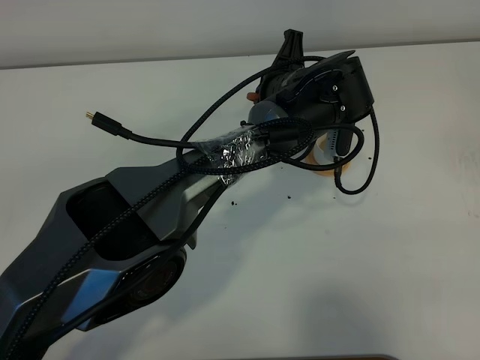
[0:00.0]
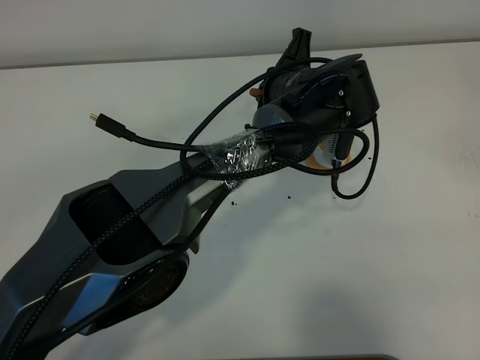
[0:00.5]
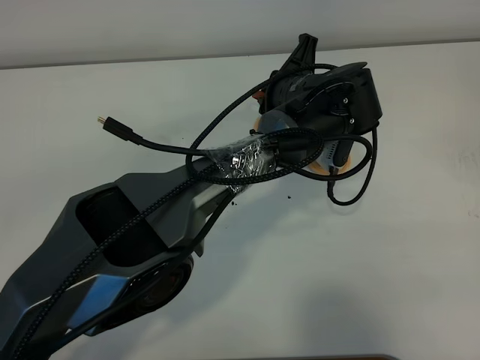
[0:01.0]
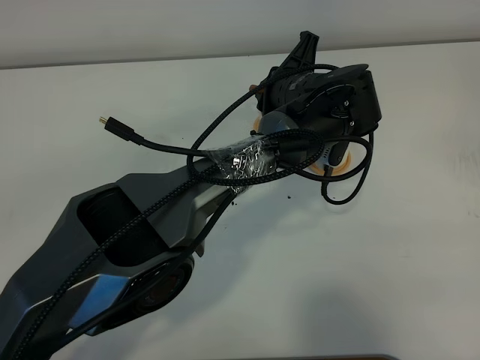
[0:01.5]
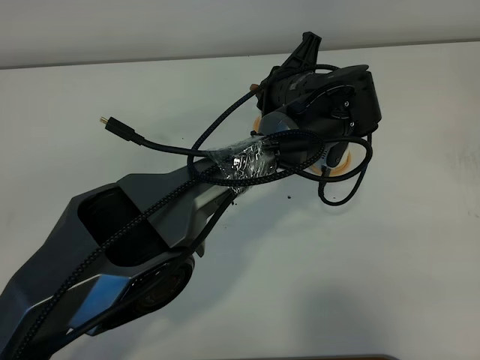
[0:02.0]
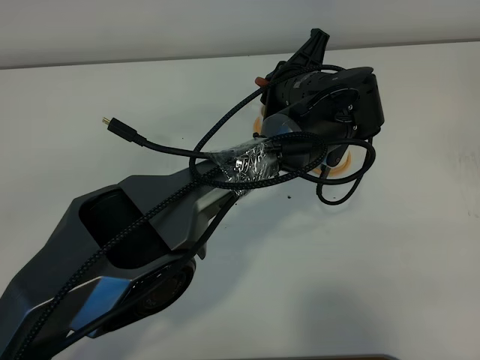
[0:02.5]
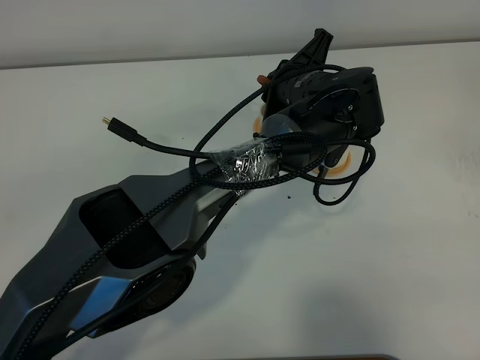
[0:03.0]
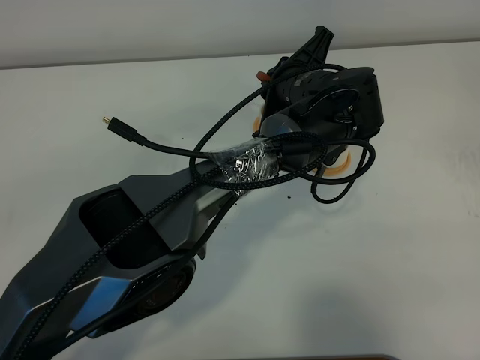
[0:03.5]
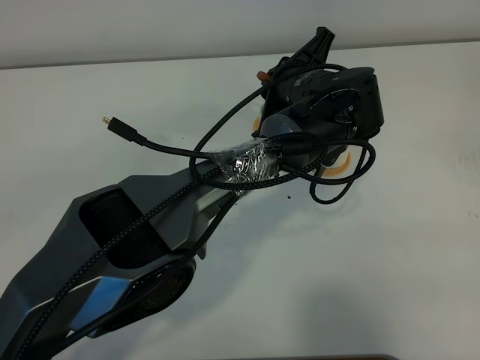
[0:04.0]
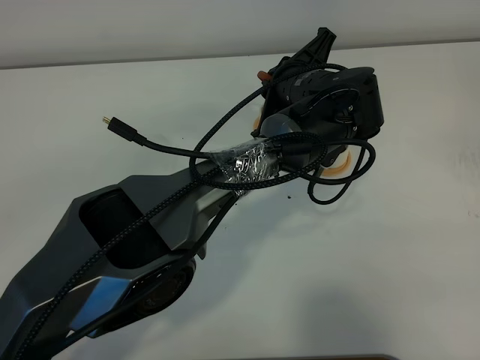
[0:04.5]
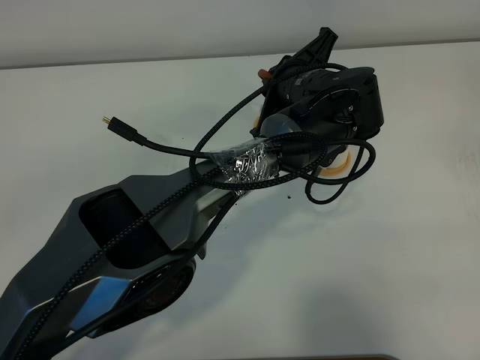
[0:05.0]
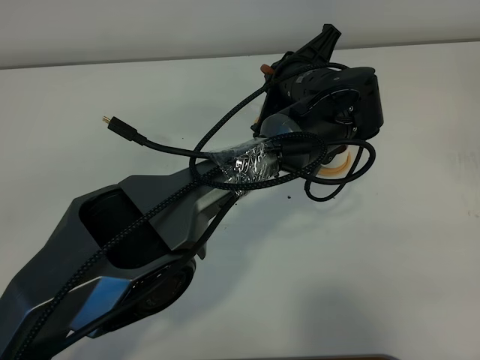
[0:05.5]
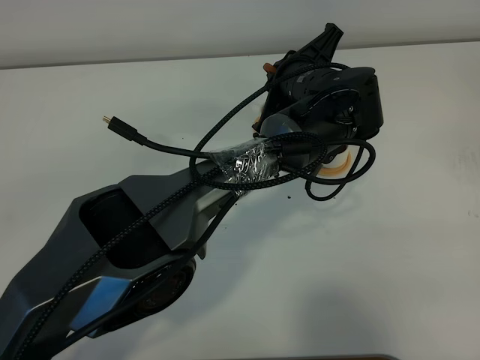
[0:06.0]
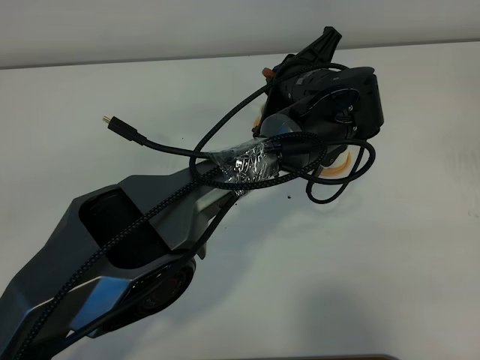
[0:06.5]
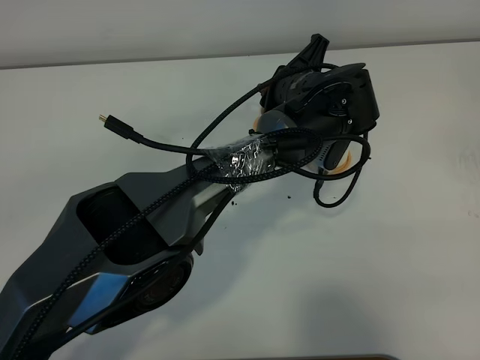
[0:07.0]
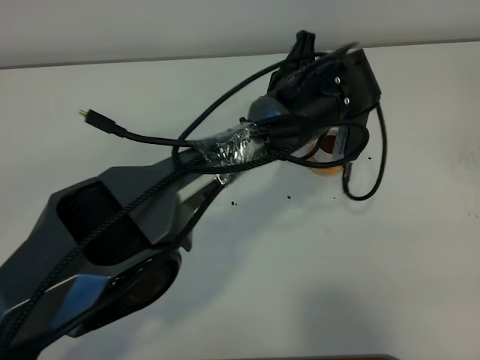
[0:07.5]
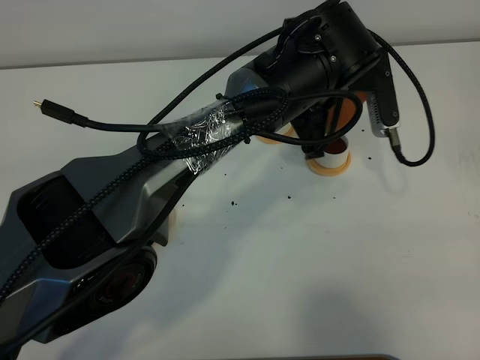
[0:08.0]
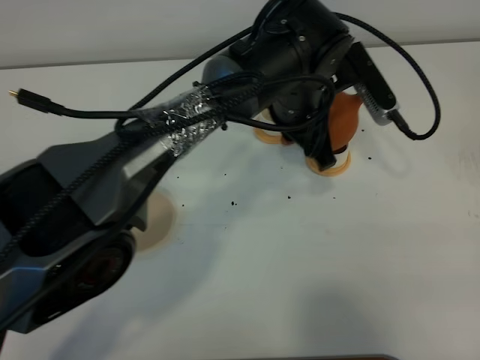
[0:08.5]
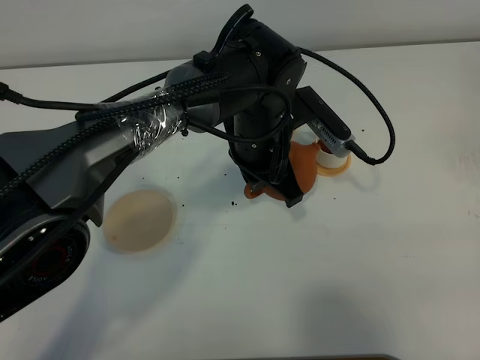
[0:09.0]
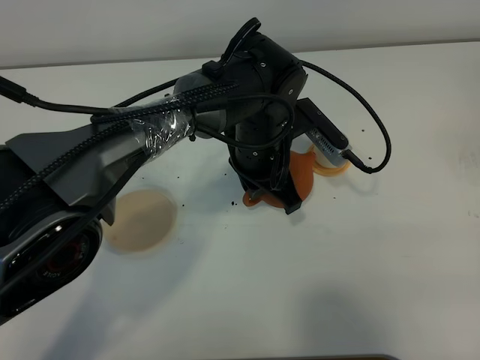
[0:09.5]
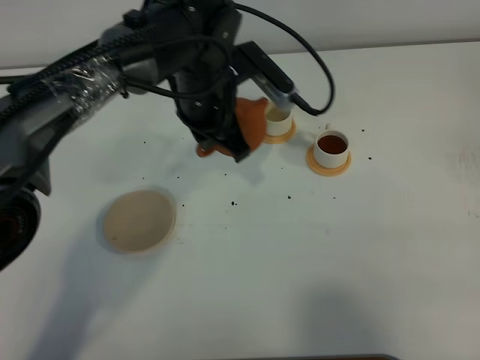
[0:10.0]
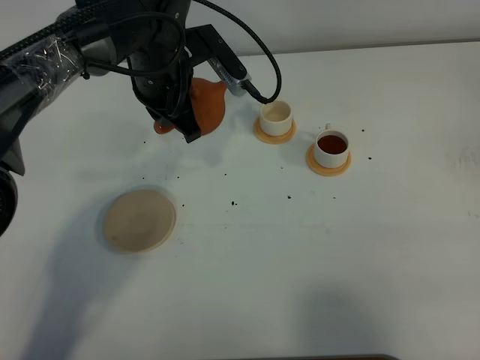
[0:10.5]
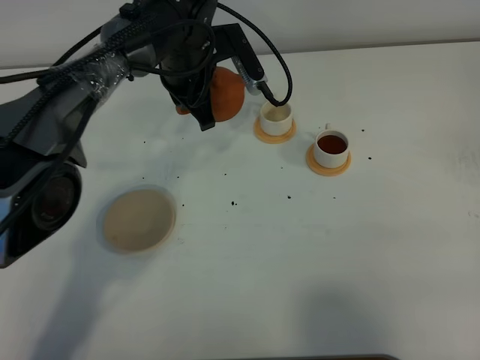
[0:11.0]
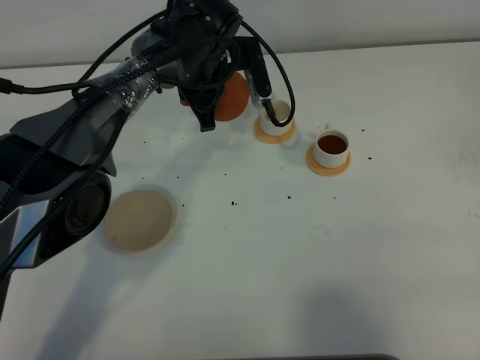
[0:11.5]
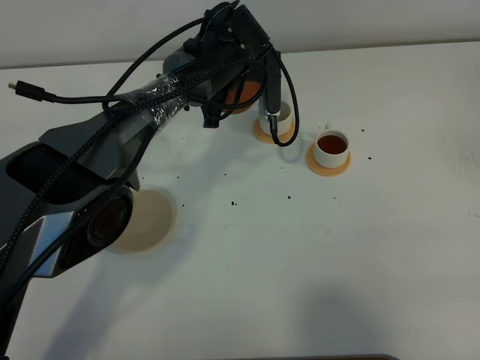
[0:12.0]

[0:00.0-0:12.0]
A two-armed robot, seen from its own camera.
Task of the whole recording: grasp the brown teapot and pour the tea into the two white teacups one by one, put the brown teapot back in its original place.
0:00.0 to 0:02.0: The grippers stay close to where they were, moving slightly.
0:02.0 to 0:06.0: There are only small adjustments of the grippers.
0:06.0 to 0:08.0: The left gripper changes place by approximately 5 cm.
0:08.0 to 0:10.0: The left gripper moves to the left, approximately 15 cm.
0:10.0 to 0:12.0: The left gripper heads forward, covering approximately 10 cm.

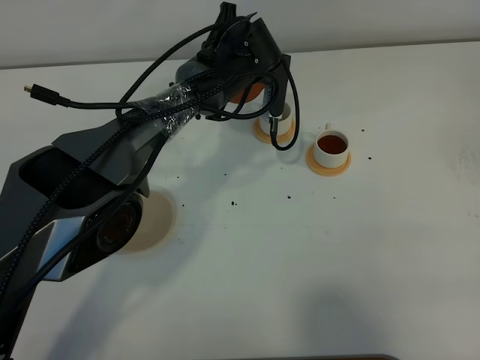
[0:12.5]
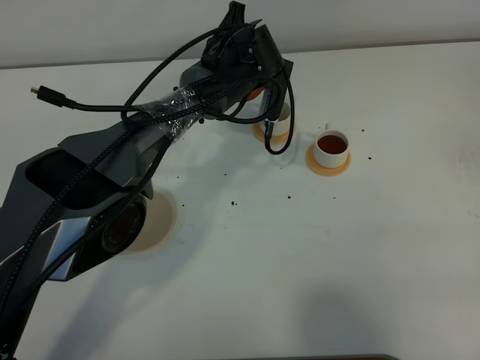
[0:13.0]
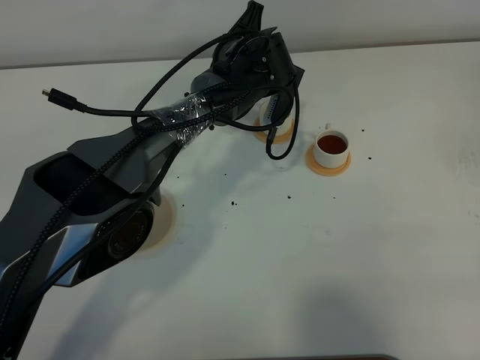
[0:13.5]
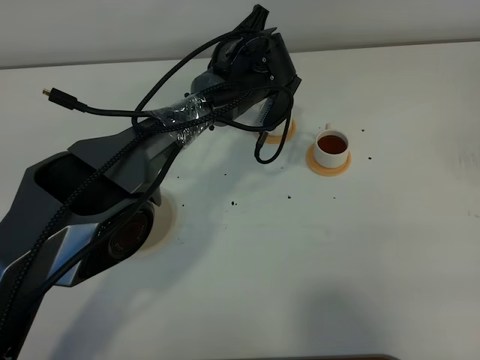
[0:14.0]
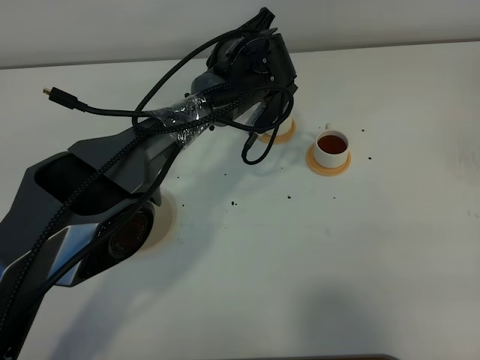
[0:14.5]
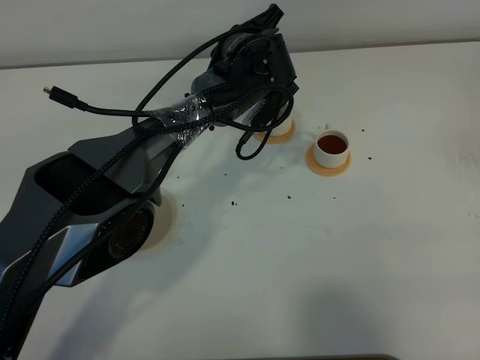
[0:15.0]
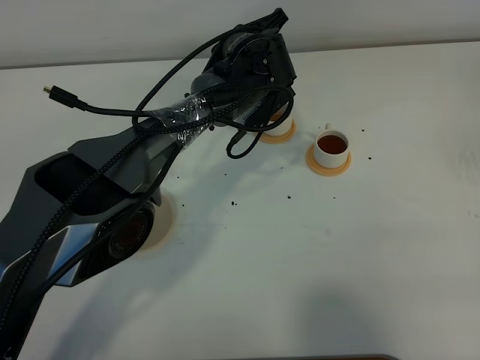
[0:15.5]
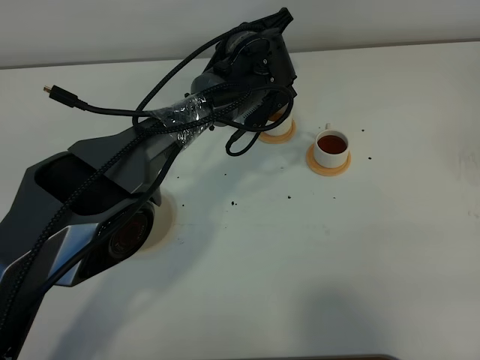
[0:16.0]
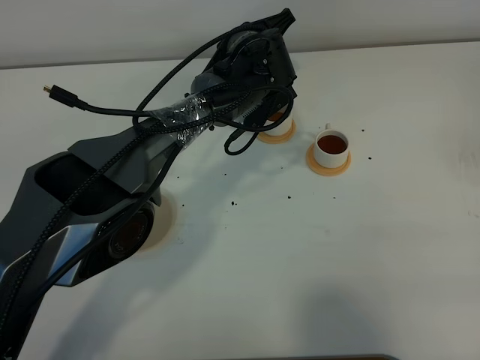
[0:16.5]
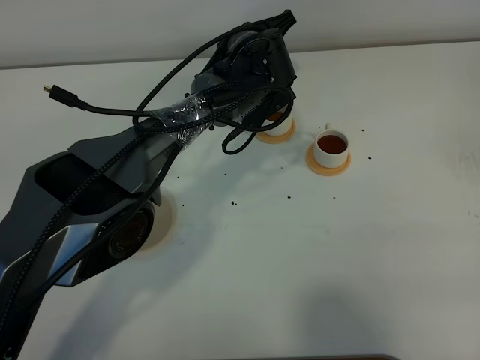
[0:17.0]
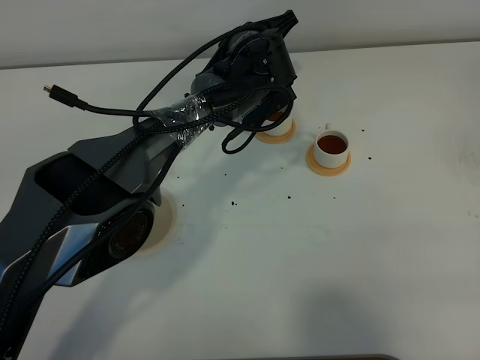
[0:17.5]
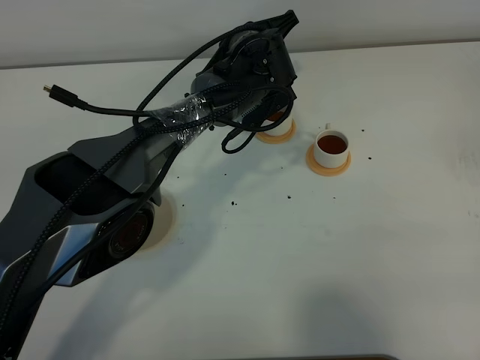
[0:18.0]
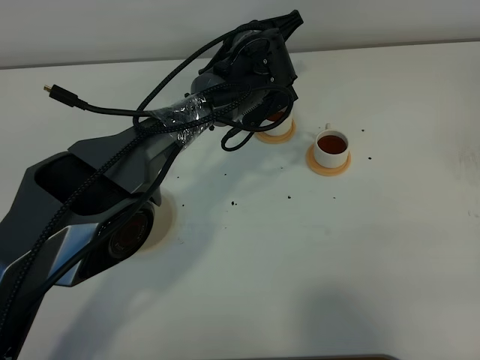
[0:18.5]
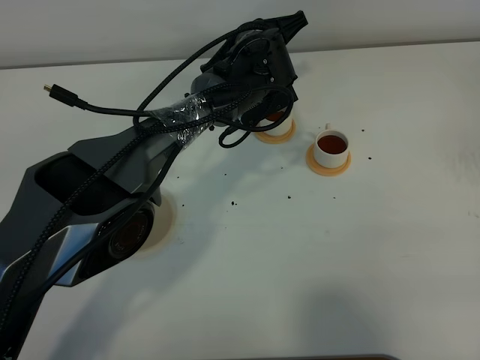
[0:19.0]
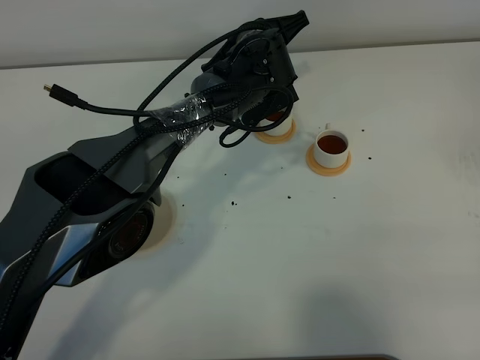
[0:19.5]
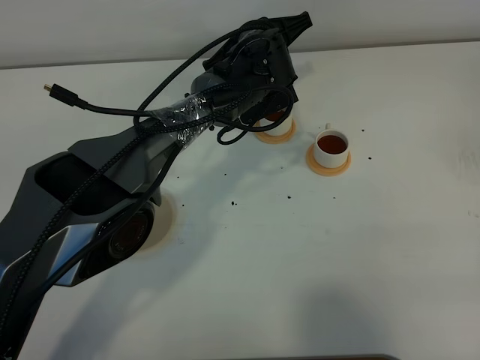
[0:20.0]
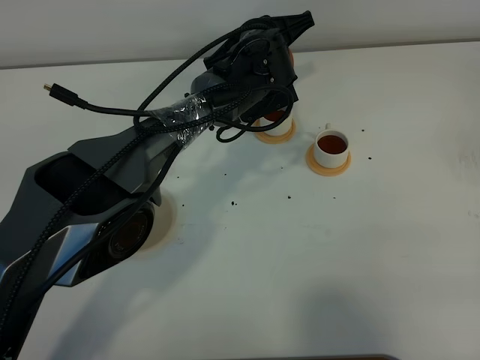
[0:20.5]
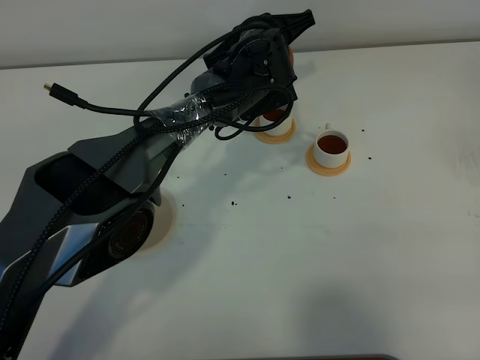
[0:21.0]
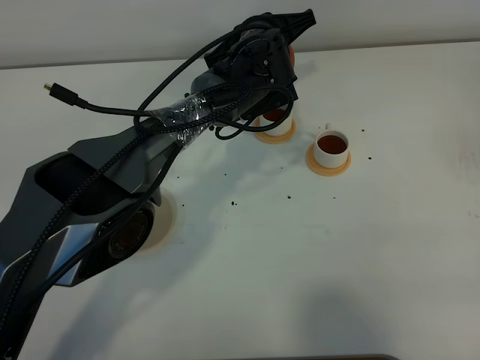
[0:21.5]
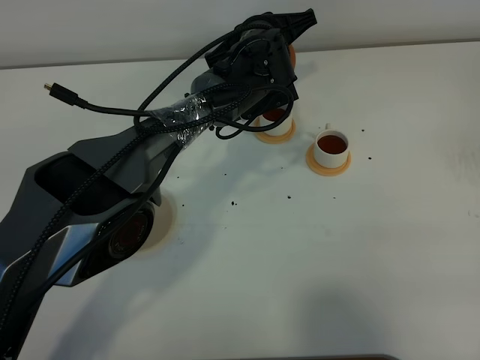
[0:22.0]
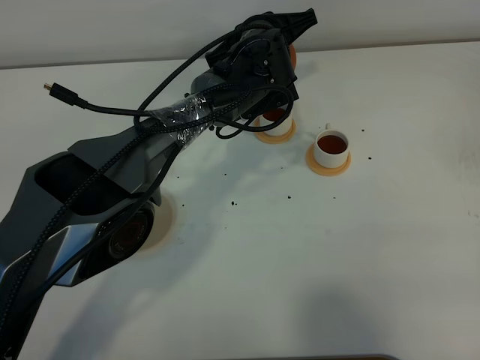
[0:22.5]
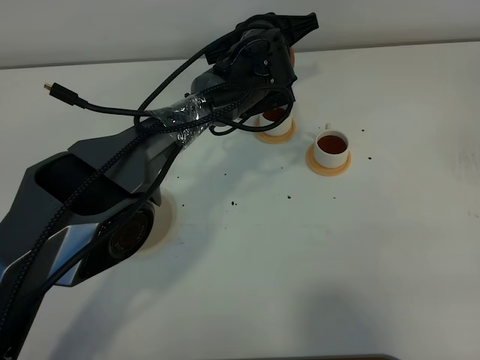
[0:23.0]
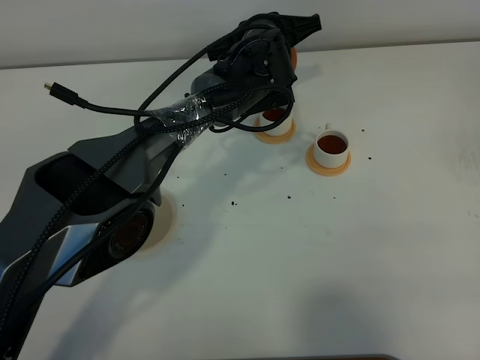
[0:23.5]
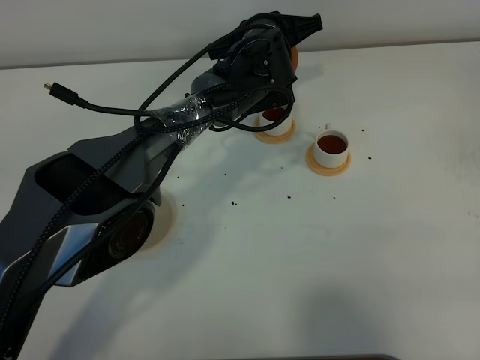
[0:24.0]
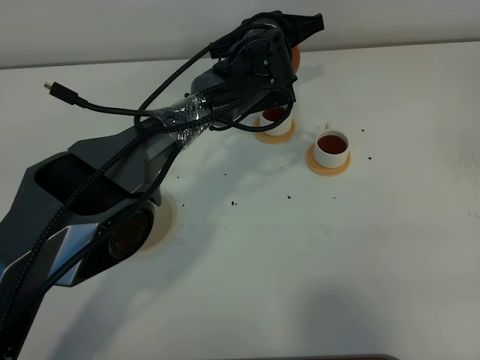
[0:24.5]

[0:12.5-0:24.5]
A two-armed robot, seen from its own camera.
Task of the whole recording: grasp the brown teapot and pour the tea into the two white teacups one by one, put the brown teapot back in its original place.
0:14.5 to 0:16.5: The grippers move only a little.
0:16.5 to 0:20.5: The grippers make only small movements.
0:20.5 to 0:22.5: The two grippers keep their place.
0:22.5 to 0:24.5: The grippers move only a little.

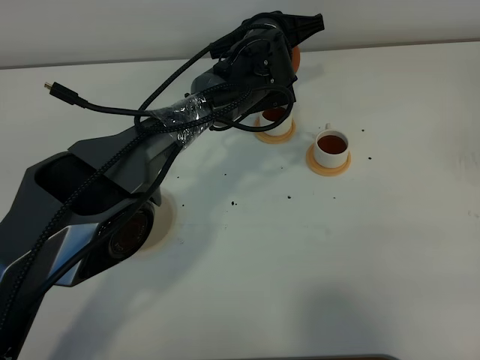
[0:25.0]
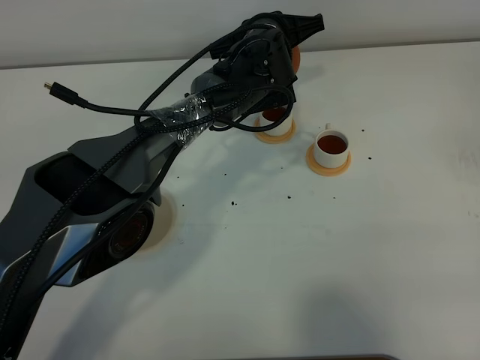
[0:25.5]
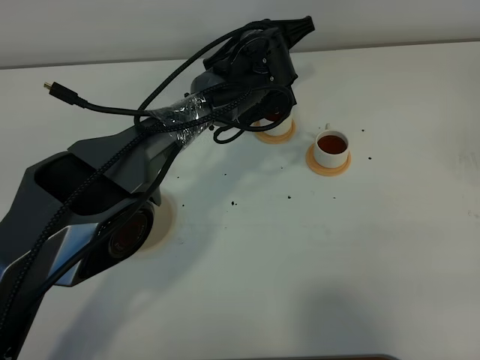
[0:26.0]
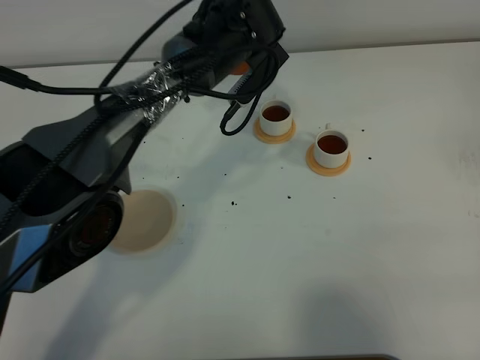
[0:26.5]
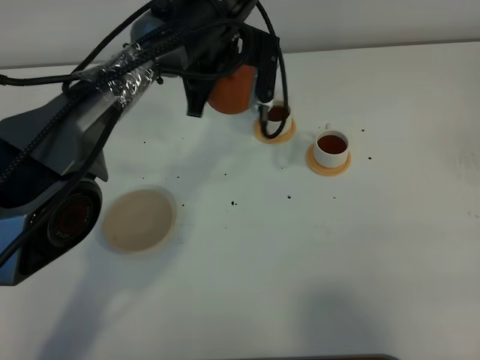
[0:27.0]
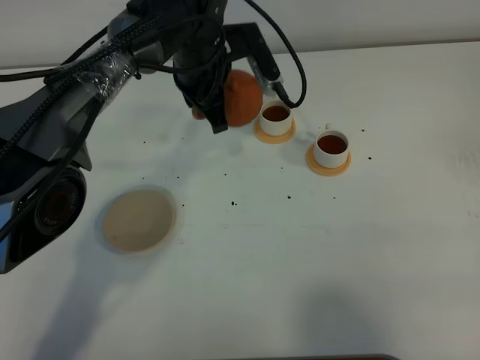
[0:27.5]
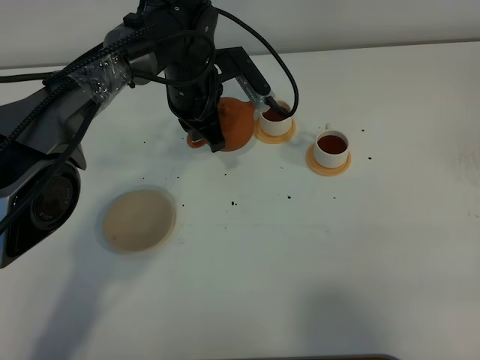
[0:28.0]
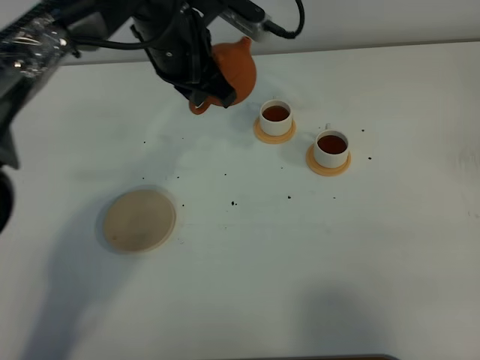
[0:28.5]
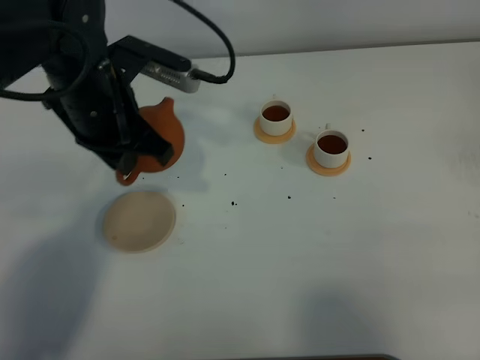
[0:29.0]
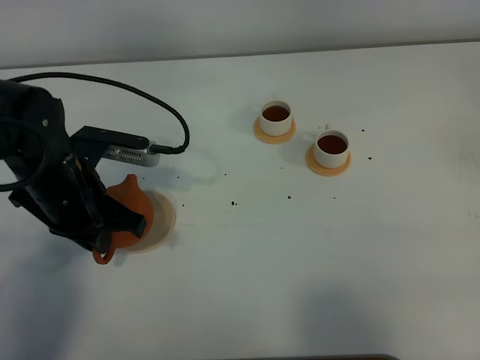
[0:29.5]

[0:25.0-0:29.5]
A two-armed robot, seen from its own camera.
Task of the whole recording: grasp the brown teapot and pour the tea into the two white teacups one by one, put the brown teapot back in its original place.
0:25.0 to 0:27.0: The left gripper heads to the left and upward, covering some 10 cm.
0:27.0 to 0:29.5: The left gripper travels backward and to the left by some 25 cm.
